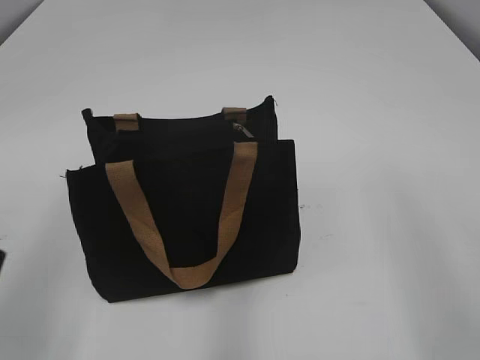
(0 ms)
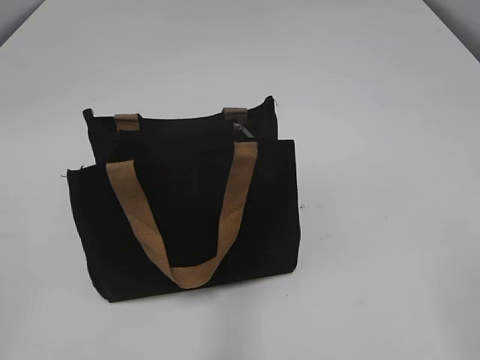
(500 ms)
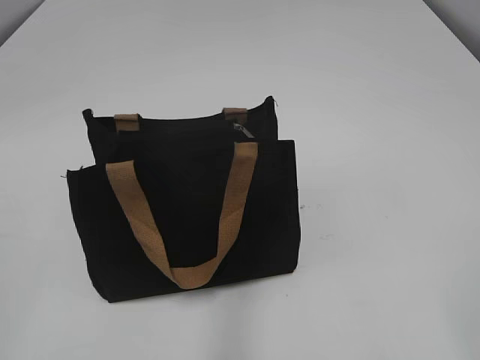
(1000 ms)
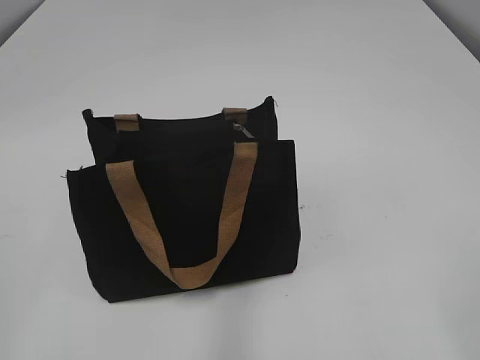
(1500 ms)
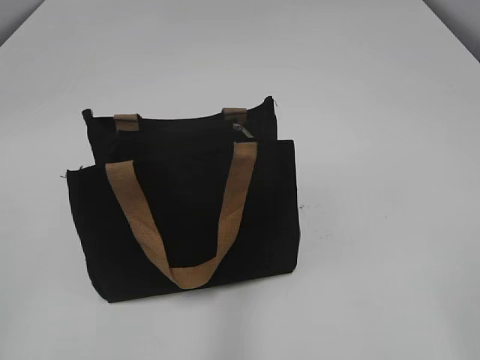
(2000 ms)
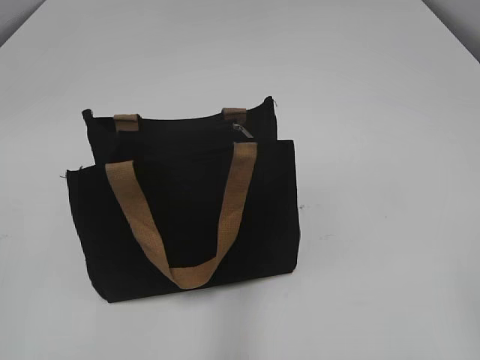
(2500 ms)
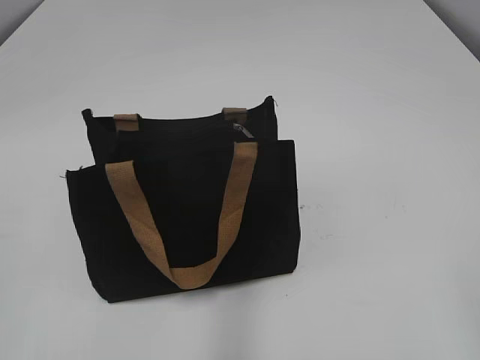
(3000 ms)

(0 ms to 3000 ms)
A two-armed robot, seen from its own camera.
0 ms - 1500 ms: The left gripper is displaced backward and to the left by about 15 cm. Meanwhile the right gripper is displaced backward by about 10 cm.
